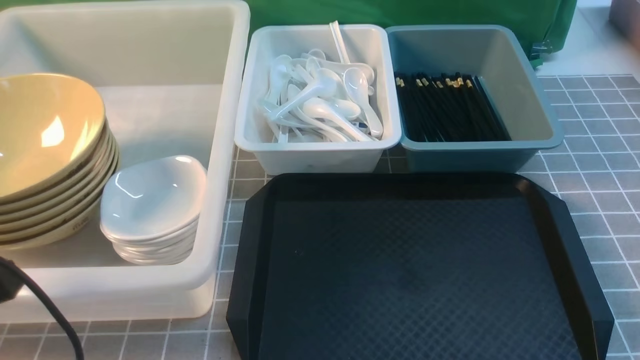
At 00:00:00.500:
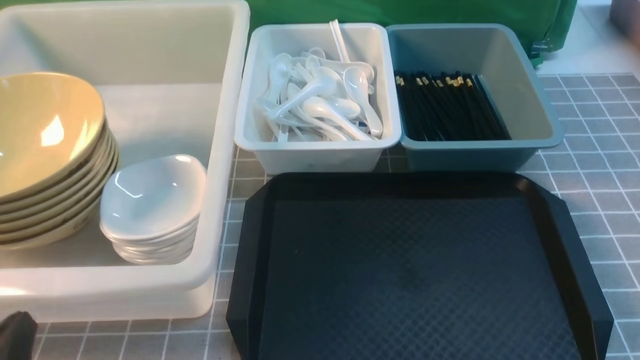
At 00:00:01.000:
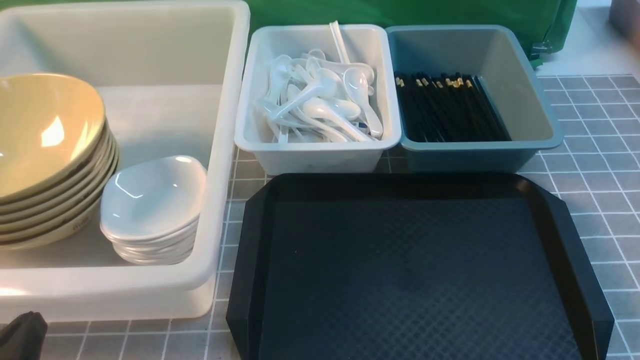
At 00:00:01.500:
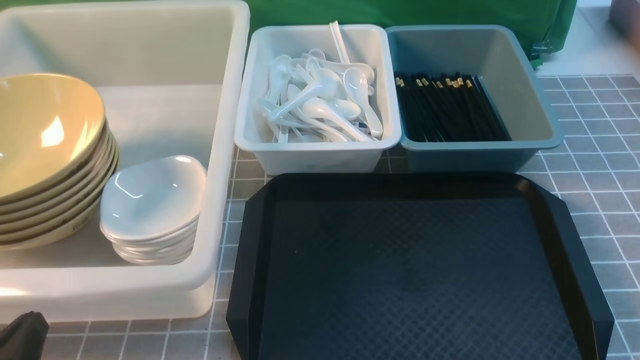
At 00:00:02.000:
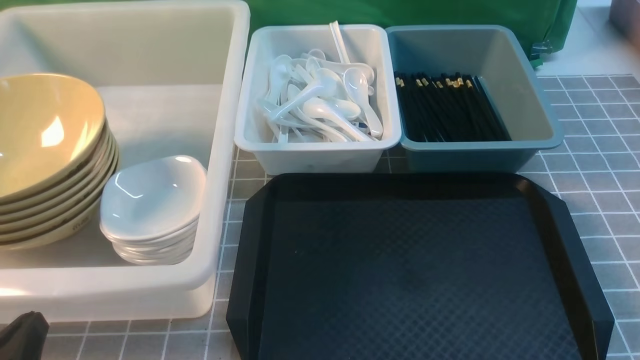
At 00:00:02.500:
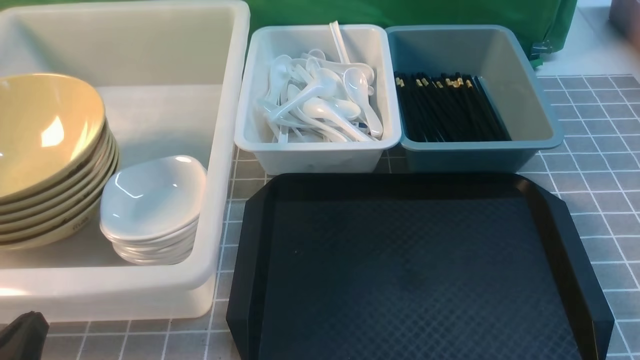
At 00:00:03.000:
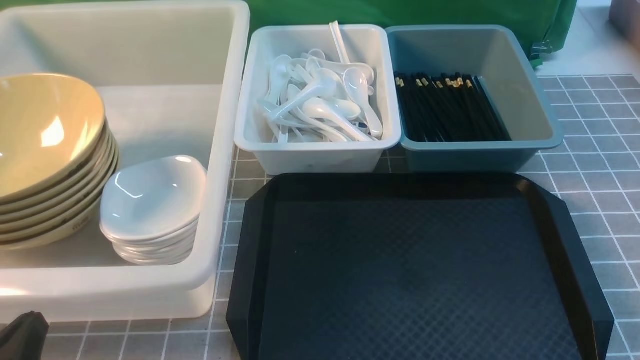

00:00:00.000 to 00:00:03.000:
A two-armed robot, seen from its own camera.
Task of the whole recording: on grey table put chopsticks spoon bowls plates into blue grey white boxes.
00:00:00.000 to 00:00:01.500: The left gripper heads downward, covering approximately 10 cm.
00:00:01.500 to 00:00:03.000: Neither gripper changes place.
